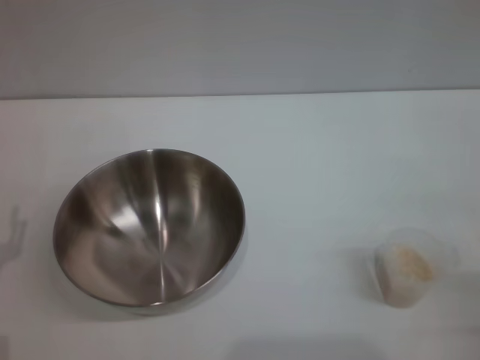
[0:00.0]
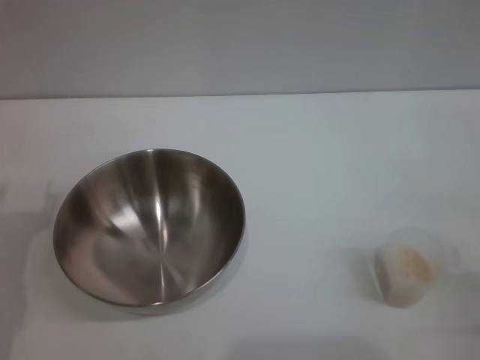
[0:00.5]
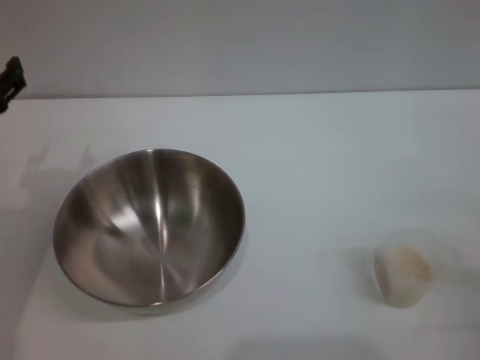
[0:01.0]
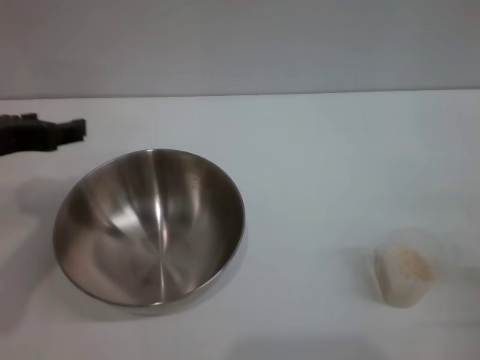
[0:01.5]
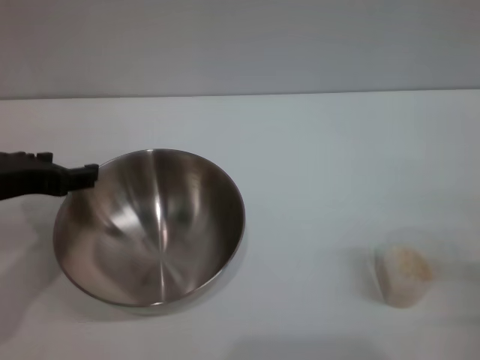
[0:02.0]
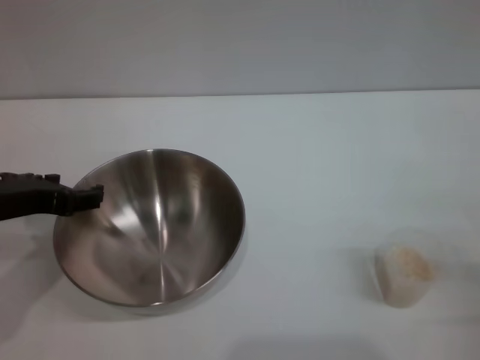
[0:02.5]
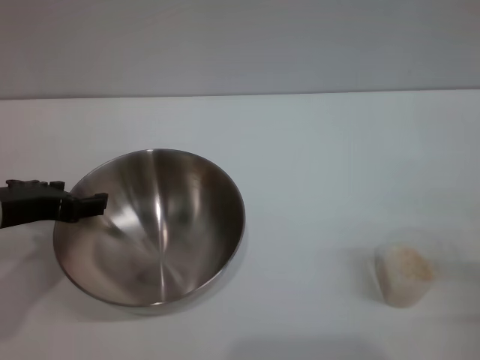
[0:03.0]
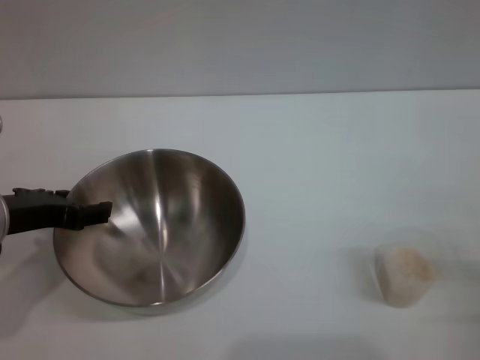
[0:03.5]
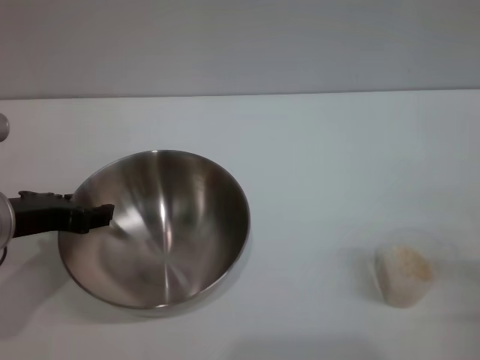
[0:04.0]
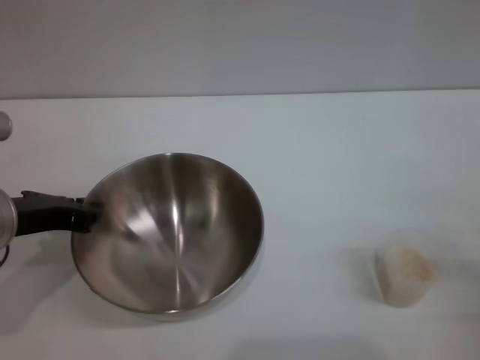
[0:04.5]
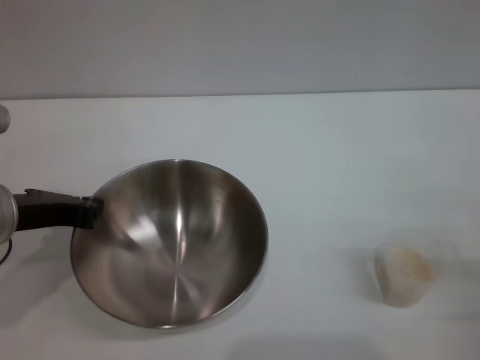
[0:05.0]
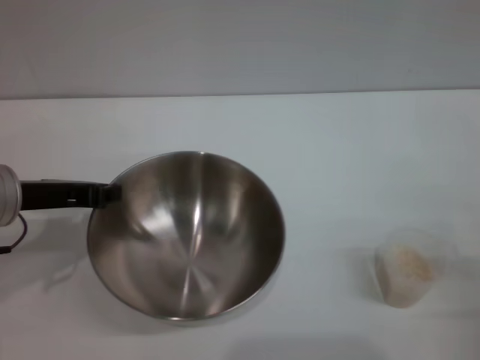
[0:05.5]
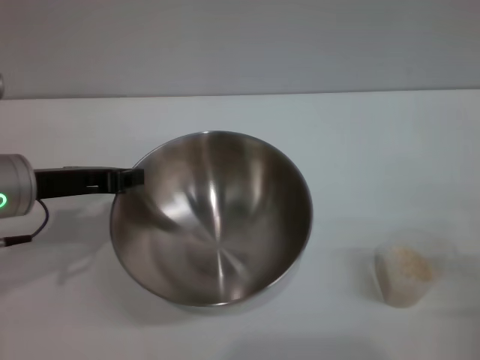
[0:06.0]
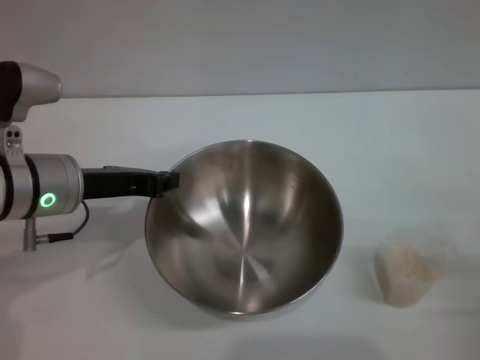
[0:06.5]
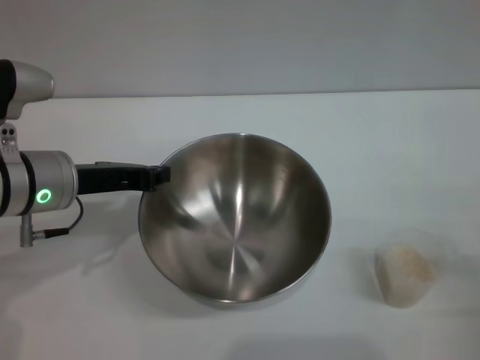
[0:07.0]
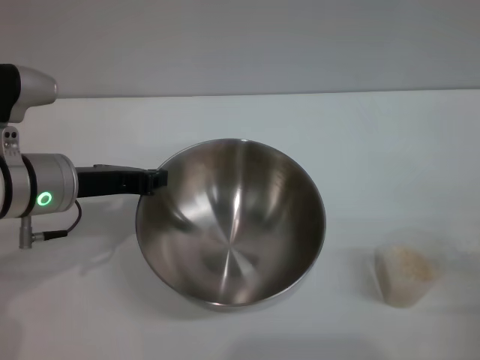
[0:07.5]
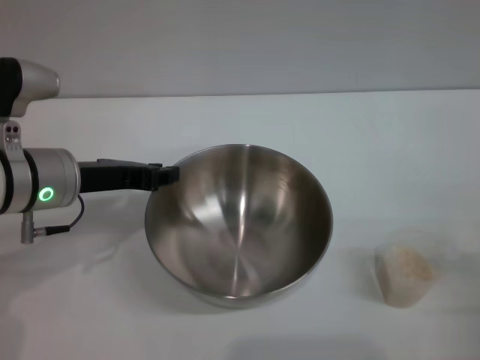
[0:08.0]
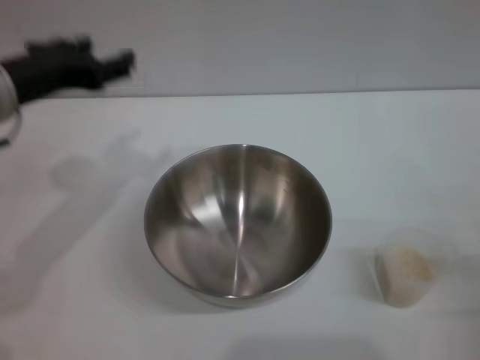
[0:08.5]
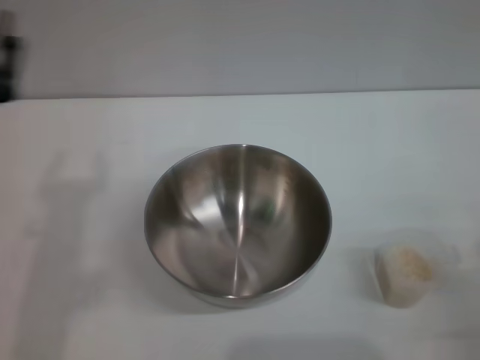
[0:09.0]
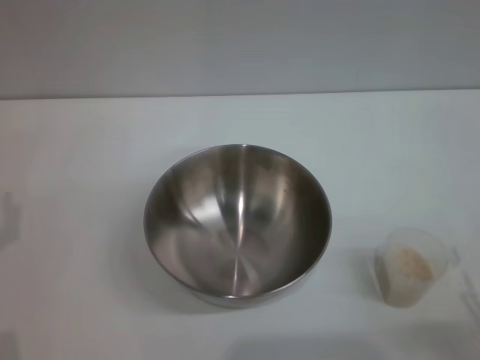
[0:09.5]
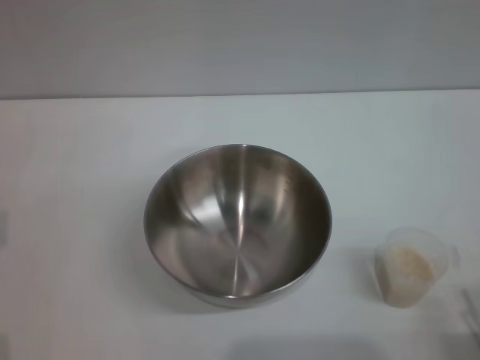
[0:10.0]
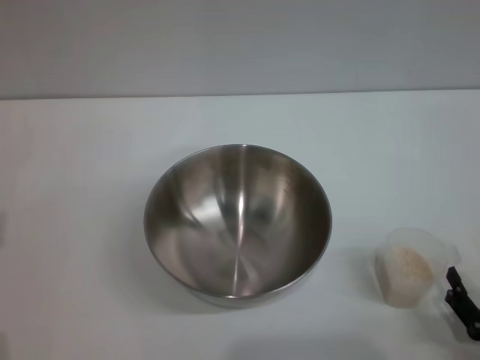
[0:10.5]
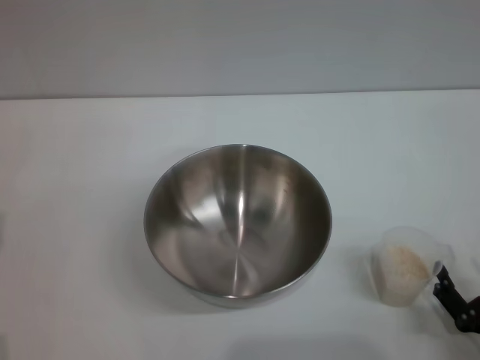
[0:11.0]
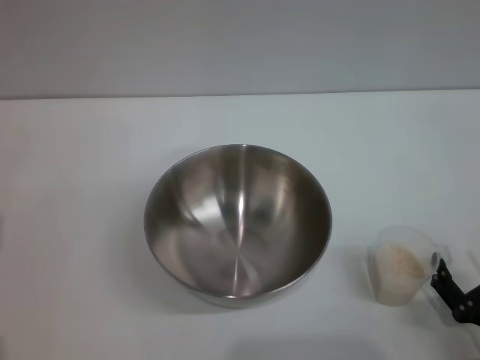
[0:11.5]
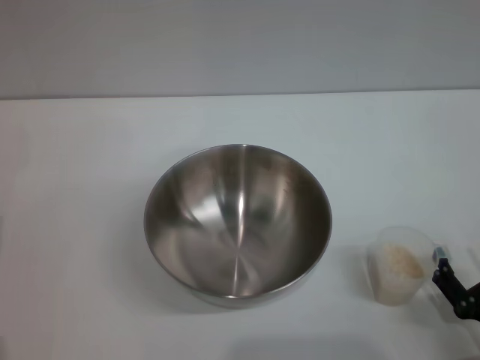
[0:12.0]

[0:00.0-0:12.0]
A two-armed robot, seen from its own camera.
Task of the whole recording: Place the bowl in the middle of the table with one hand and pour the rice from the grain cup into it with the other hand.
Step, 0:00.0 to 0:05.5: Pick up the bowl with the left gripper.
Step, 0:06.0 to 0:08.0: Place the bowl in the center of view with the left gripper.
0:00.0 to 0:02.0: The left gripper travels upward and forward by approximately 15 cm.
0:02.0 to 0:04.0: The grippers make only small movements.
0:04.0 to 0:06.0: The left gripper closes its fingers.
0:06.0 to 0:08.0: There are only small adjustments of the grippers.
0:08.0 to 0:10.0: The left gripper shifts roughly 20 cm backward, to the left and downward, and opens up; the right gripper moves backward, roughly 10 cm.
0:10.0 to 0:12.0: The right gripper shifts about 5 cm forward.

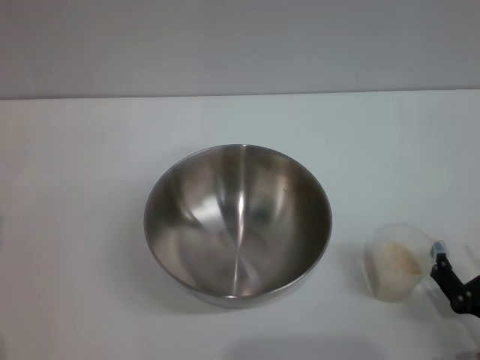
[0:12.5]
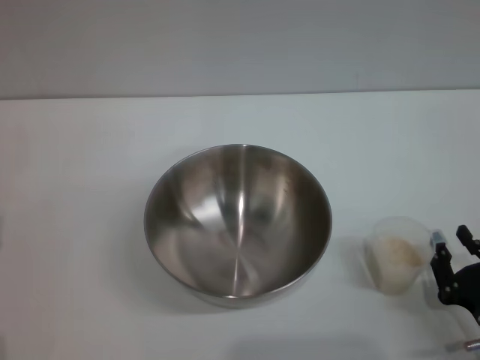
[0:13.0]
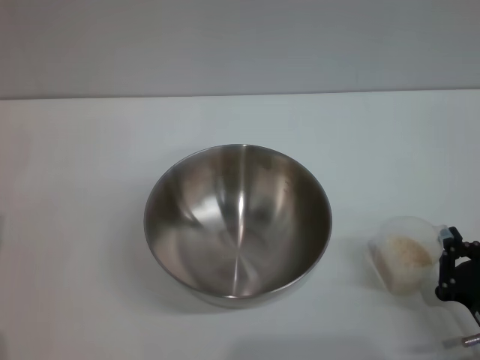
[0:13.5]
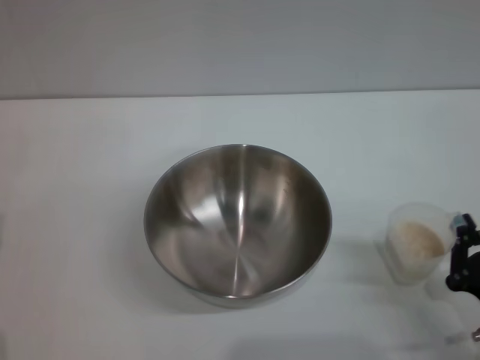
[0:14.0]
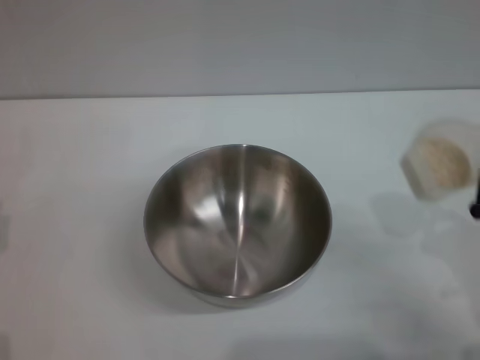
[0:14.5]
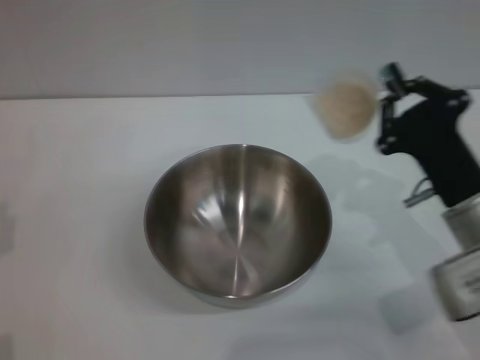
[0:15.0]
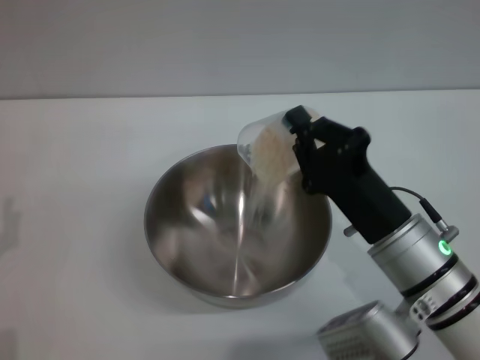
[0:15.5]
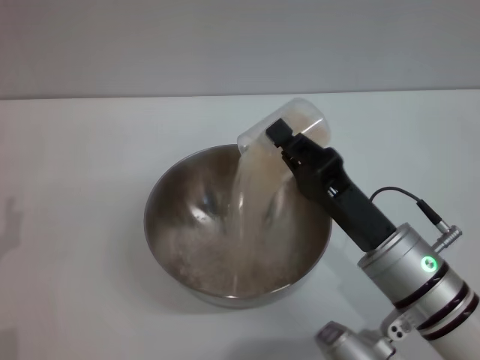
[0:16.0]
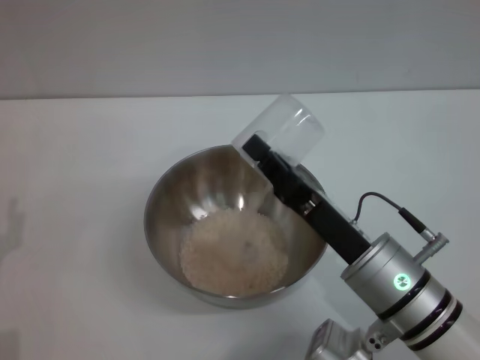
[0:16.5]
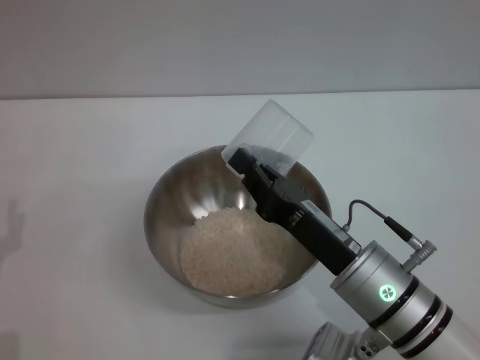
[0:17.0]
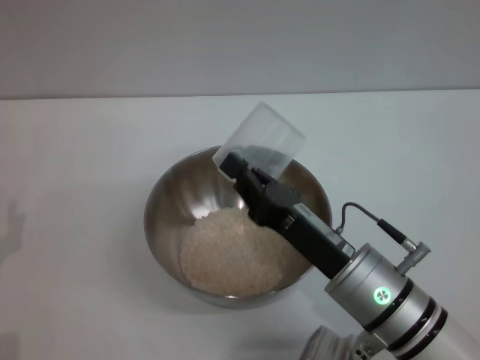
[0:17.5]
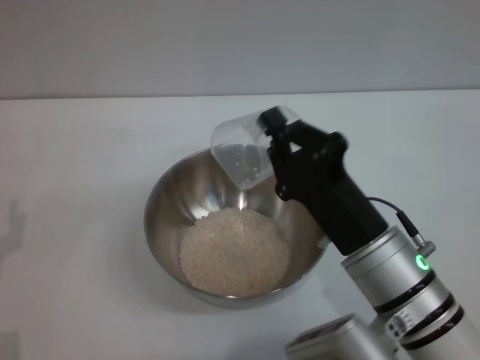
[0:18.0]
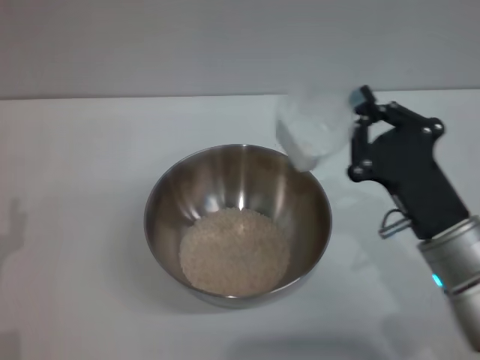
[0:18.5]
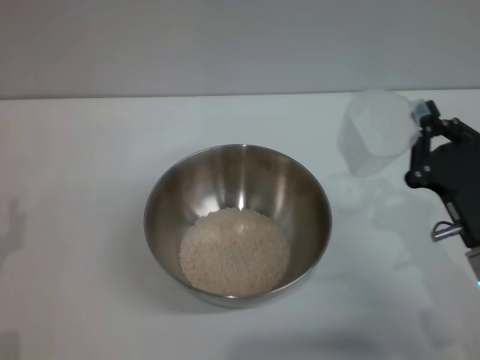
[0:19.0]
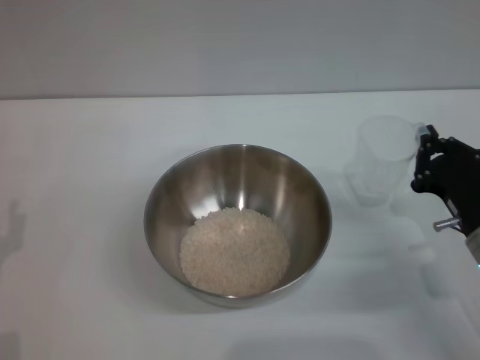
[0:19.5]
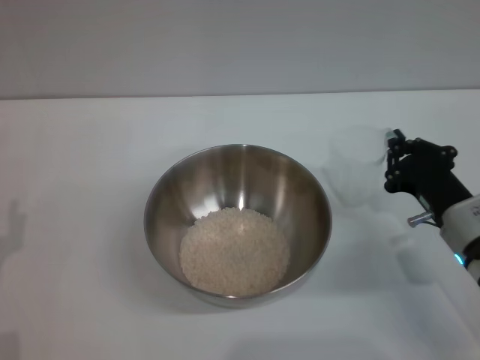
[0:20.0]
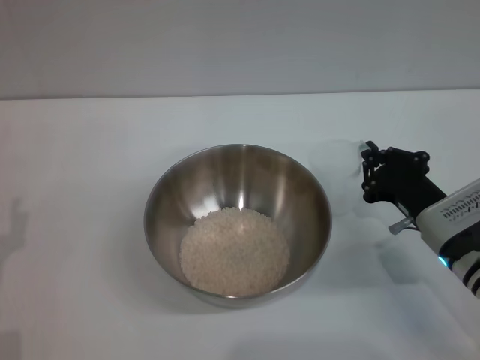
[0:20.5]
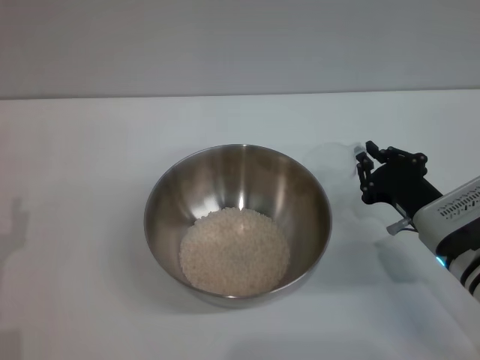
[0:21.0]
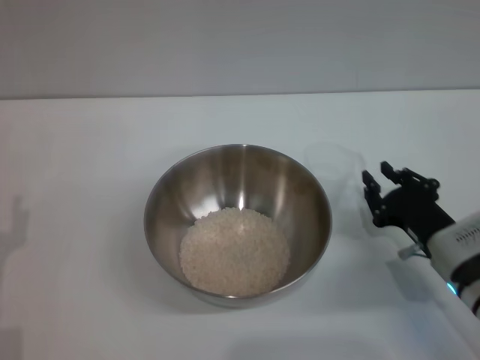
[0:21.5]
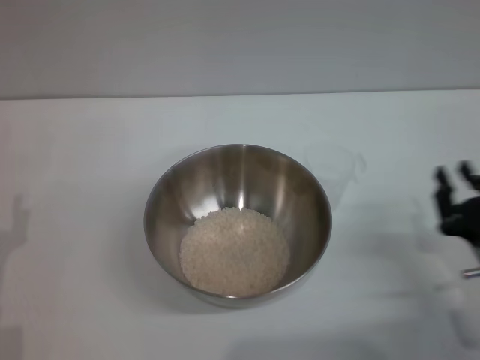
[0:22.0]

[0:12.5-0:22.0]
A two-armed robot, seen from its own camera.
Task of the whole recording: Place the bowl in the middle of the table with one hand and pour the rice from the grain cup into it with the other hand.
Step, 0:14.5 to 0:18.5: Pour the rice from the cup into the bowl with the right gripper.
Step, 0:19.0 to 0:22.0: Place the cup on the table with the right gripper.
0:12.5 to 0:14.5: The right gripper heads upward and forward, covering about 10 cm, and closes its fingers.
0:14.5 to 0:16.5: The right gripper shifts approximately 15 cm to the left.
0:18.0 to 0:20.0: The right gripper travels to the right, forward and downward by approximately 15 cm.
0:20.0 to 0:22.0: The right gripper travels backward by about 10 cm, and opens.
